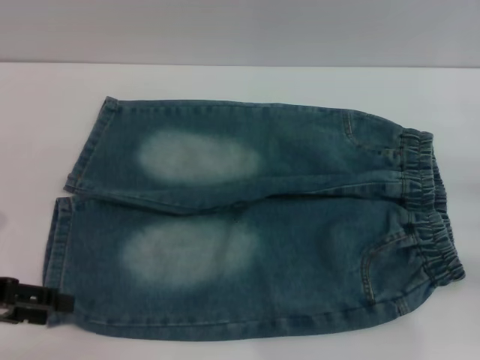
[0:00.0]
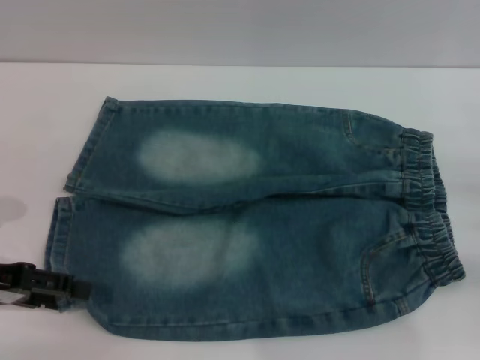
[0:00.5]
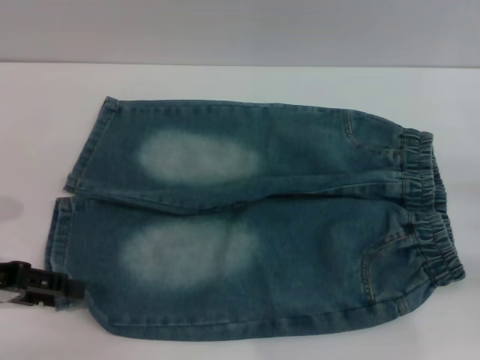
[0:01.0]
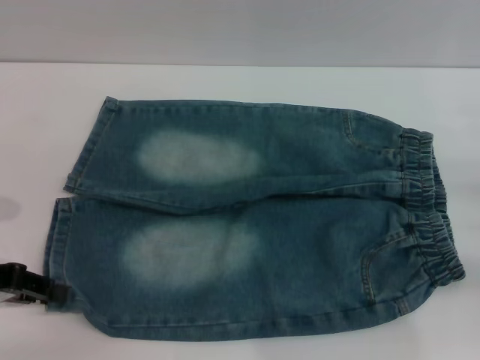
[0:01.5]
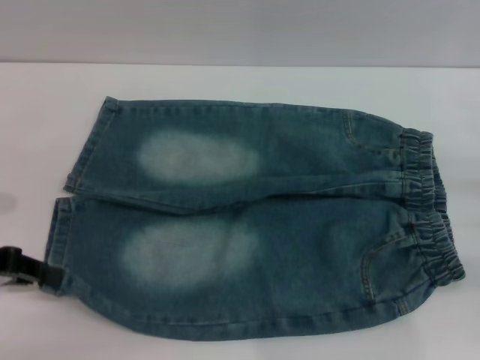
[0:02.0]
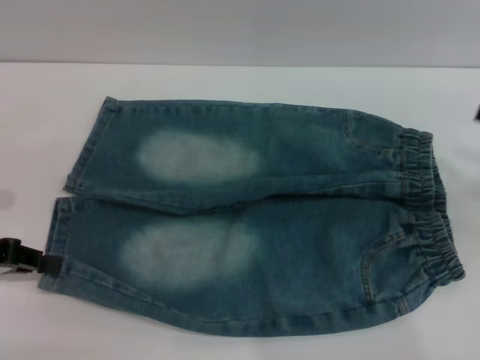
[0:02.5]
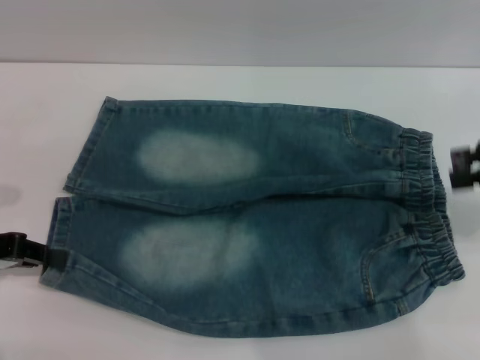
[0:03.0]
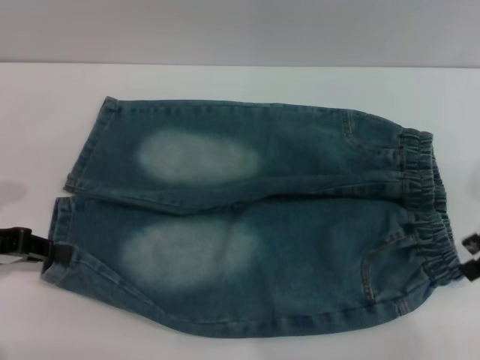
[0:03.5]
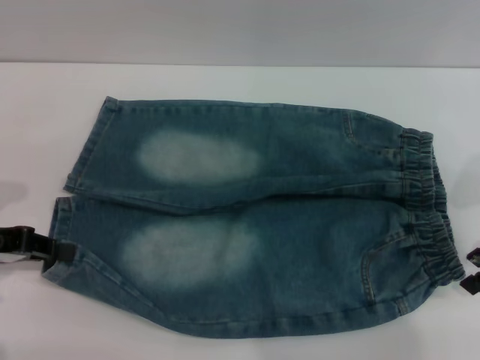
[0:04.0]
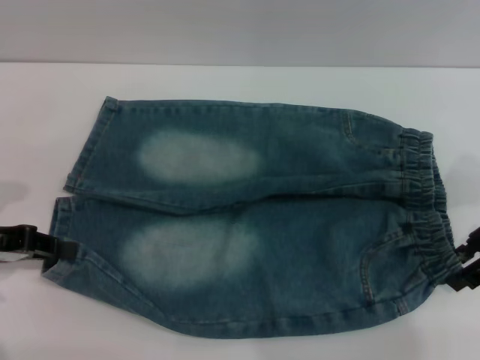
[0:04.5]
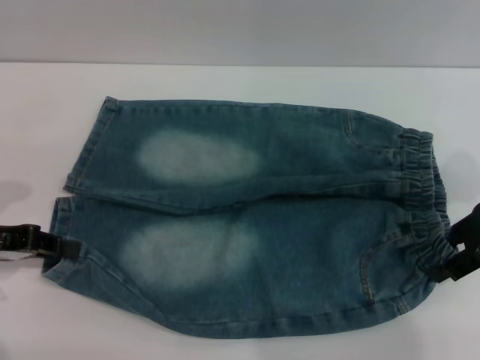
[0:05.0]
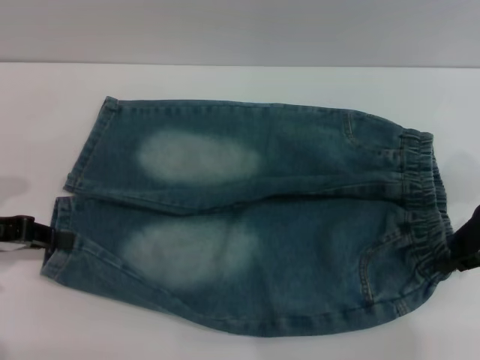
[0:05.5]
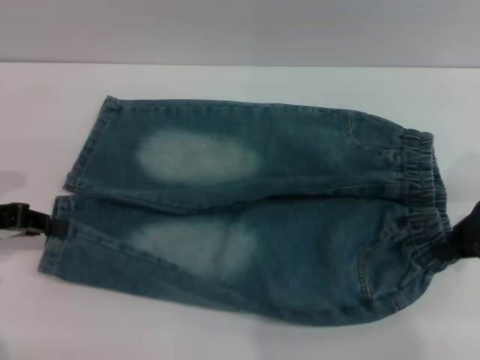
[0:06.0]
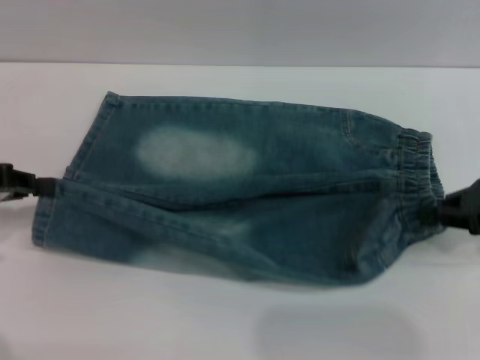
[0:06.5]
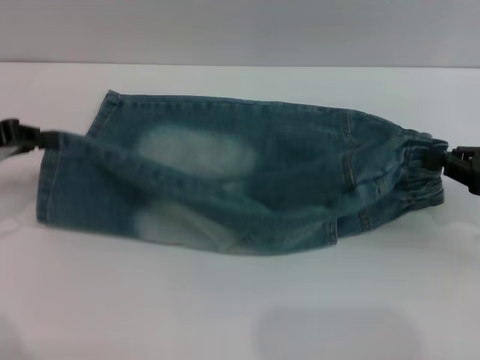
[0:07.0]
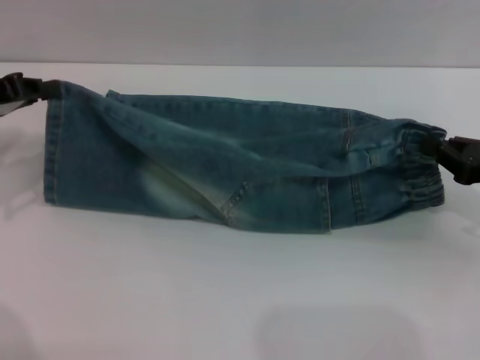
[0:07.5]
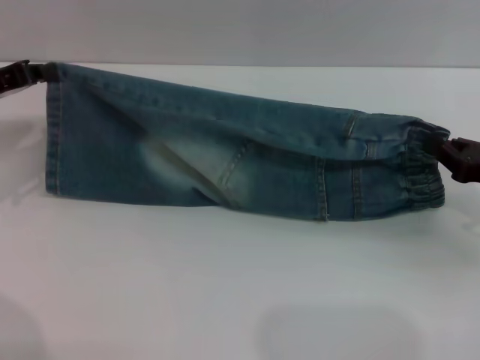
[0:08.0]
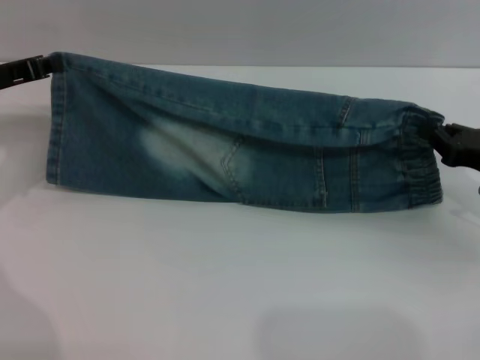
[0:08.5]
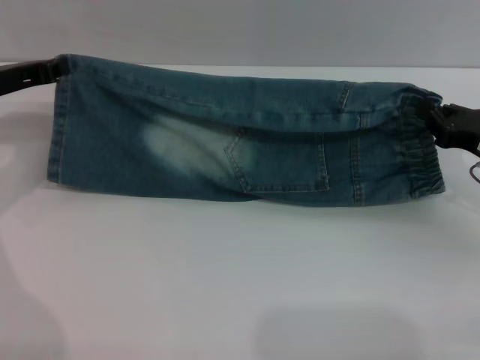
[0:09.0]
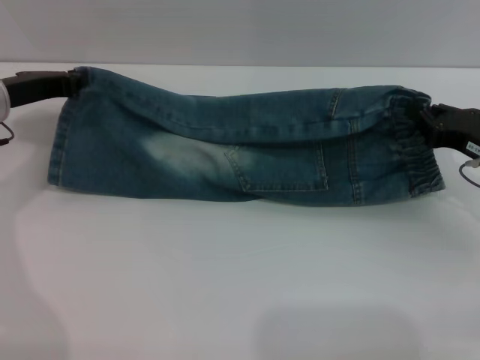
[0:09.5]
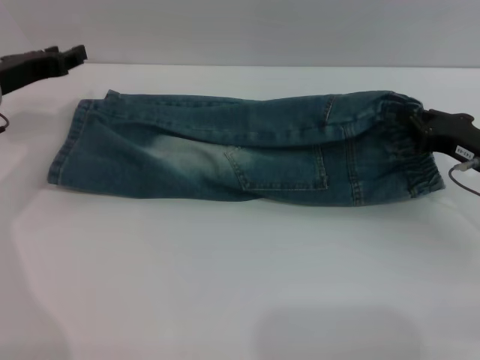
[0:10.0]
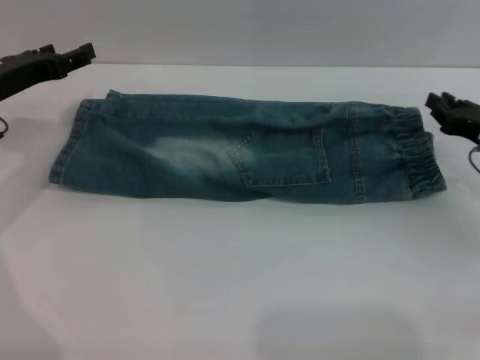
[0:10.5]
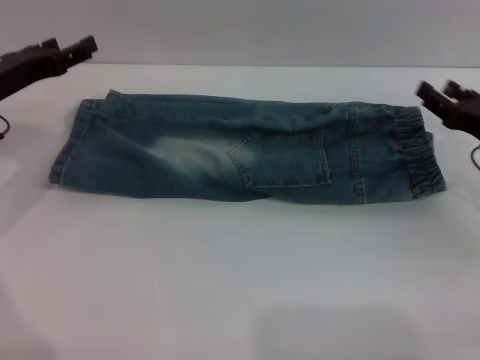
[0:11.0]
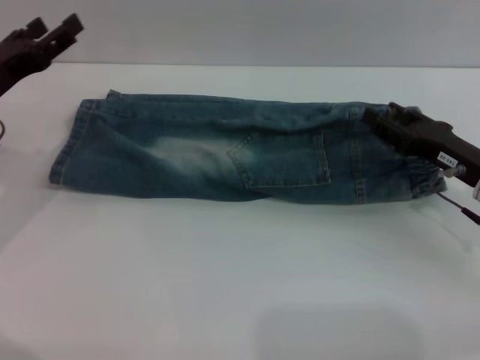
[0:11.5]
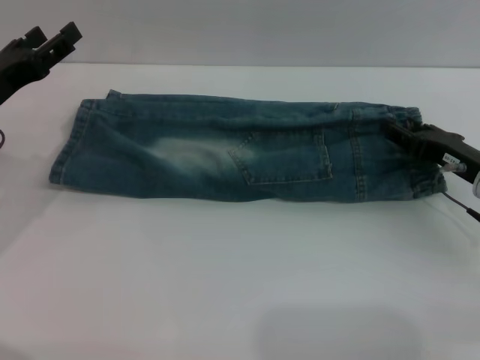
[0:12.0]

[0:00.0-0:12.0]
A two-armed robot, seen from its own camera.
Step, 0:00.0 to 0:11.0: Fold the bottom of the pants upward with both grippers.
0:00.0 to 0:02.0: The left gripper closes up.
0:02.0 to 0:04.0: The right gripper goes about 15 cm upward, forward and to the left.
0:04.0 to 0:06.0: The right gripper closes up.
0:06.0 to 0:08.0: The left gripper travels forward by roughly 10 cm, while the right gripper travels downward by about 5 cm.
0:08.0 to 0:10.0: The left gripper changes place by approximately 5 cm. The right gripper shifts by some 5 cm.
0:10.0 to 0:12.0: The right gripper opens up; the left gripper is displaced backward by about 5 cm, and opens its fingers.

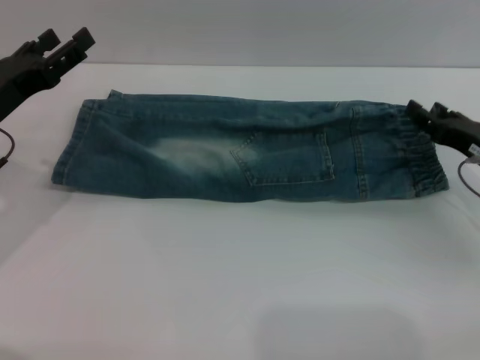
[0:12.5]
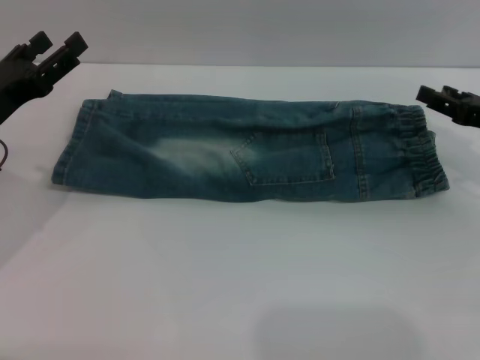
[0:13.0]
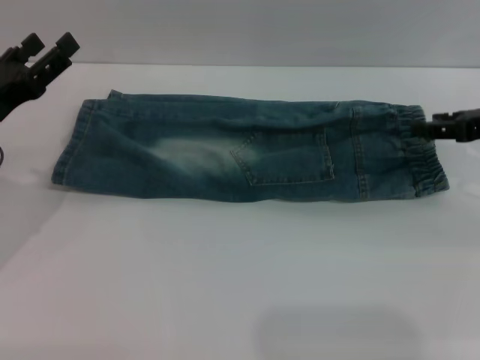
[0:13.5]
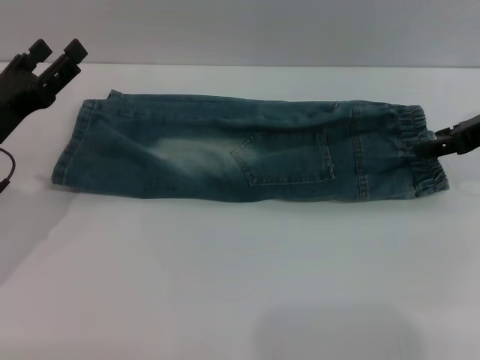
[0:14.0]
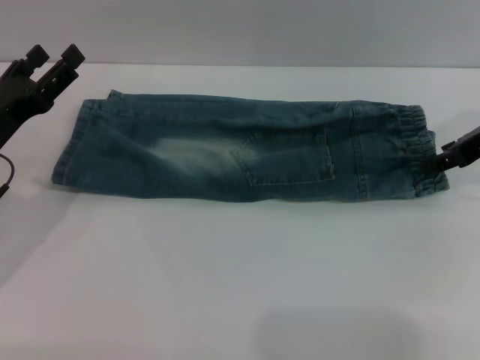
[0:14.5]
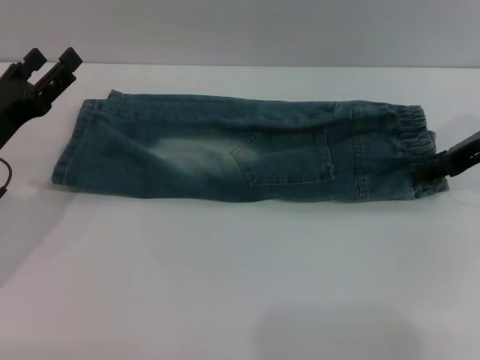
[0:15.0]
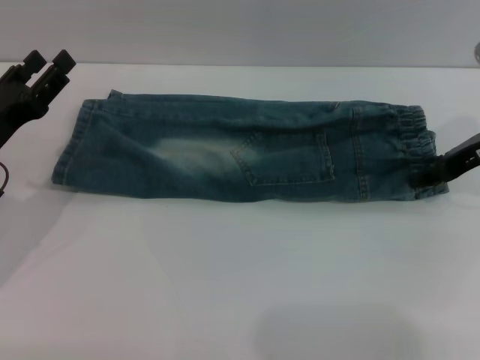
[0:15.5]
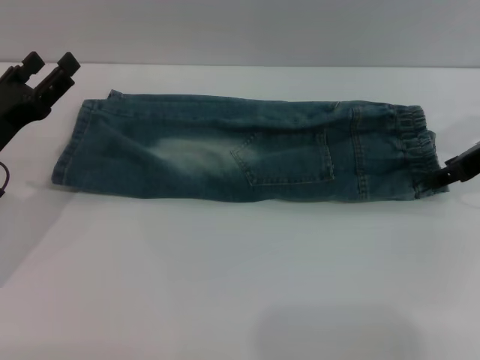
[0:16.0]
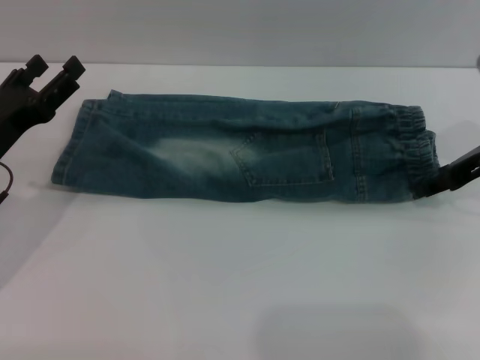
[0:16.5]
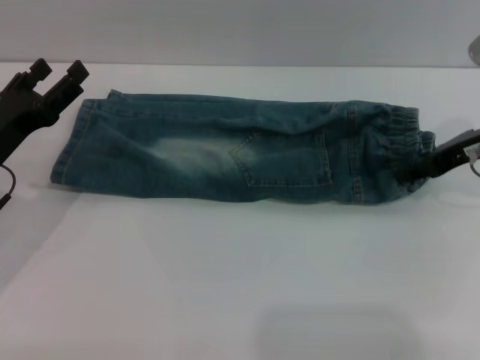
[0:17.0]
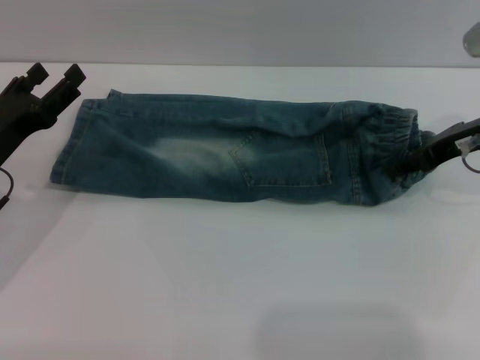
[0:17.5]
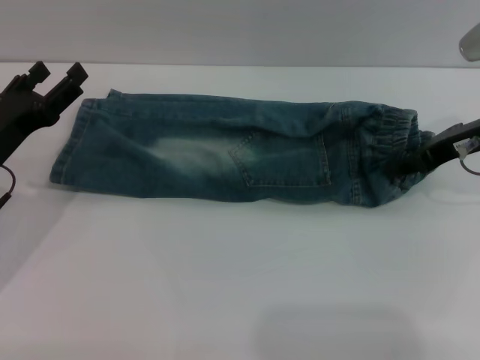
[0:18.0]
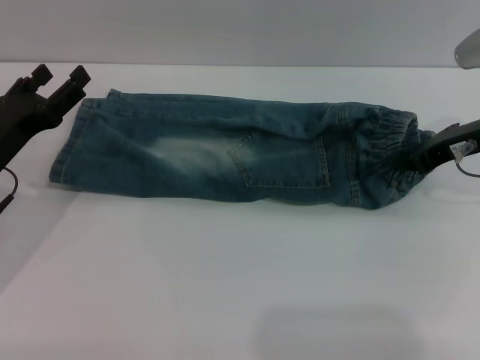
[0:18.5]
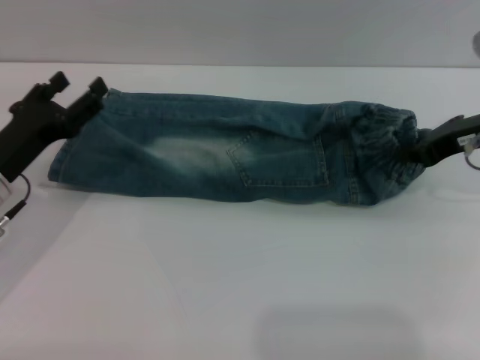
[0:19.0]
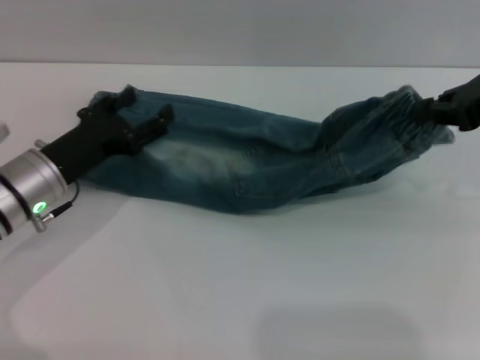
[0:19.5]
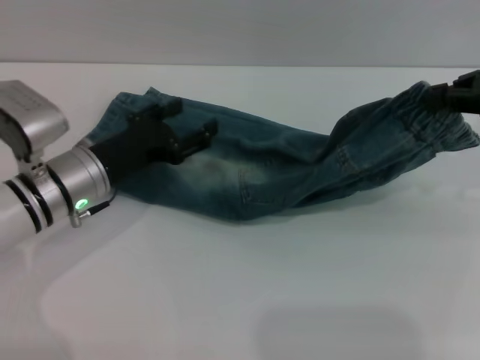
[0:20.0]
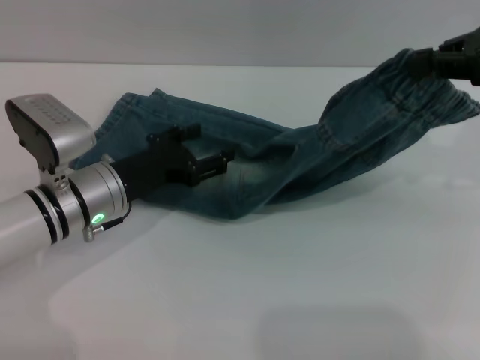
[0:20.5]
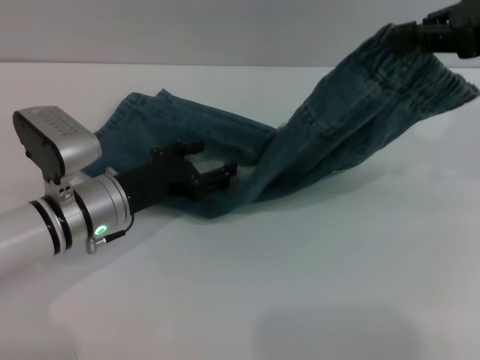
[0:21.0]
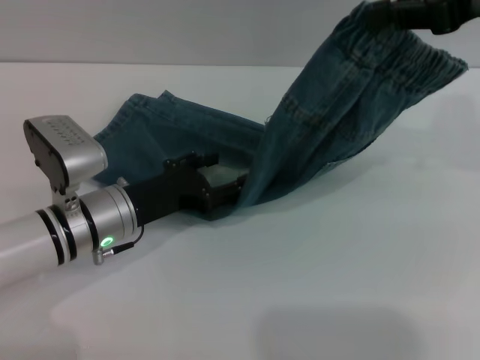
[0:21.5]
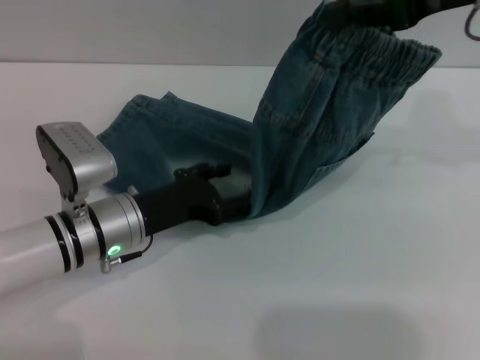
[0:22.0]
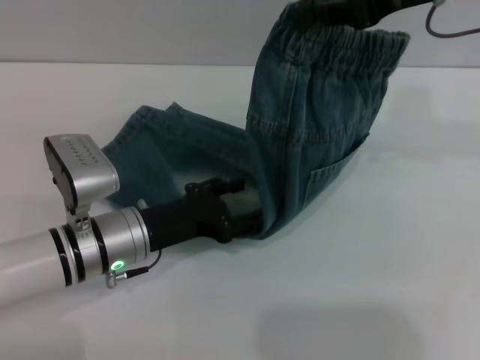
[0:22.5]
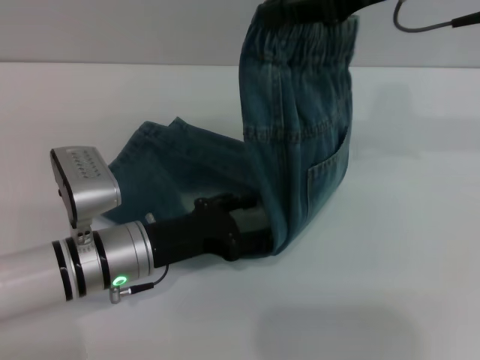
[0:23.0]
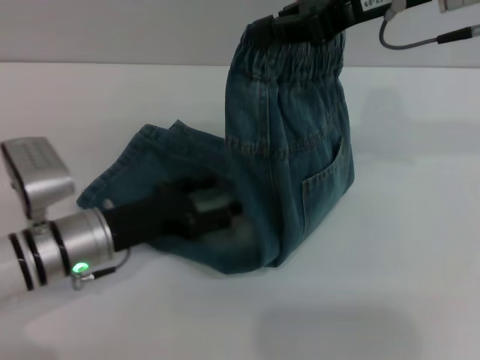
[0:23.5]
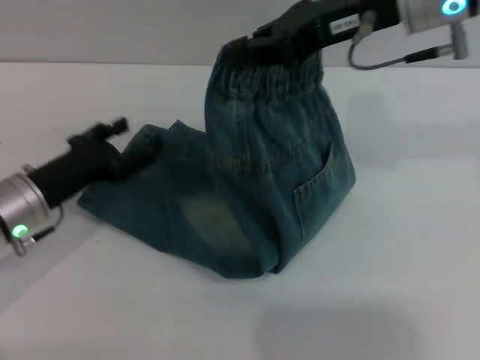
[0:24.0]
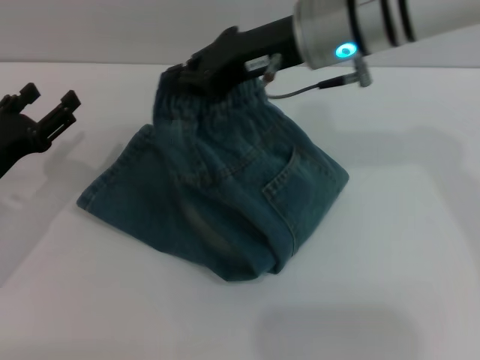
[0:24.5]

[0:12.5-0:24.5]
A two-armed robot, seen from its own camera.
0:12.5 to 0:14.5: The right gripper is displaced upward and forward by roughly 15 cm.
0:14.5 to 0:16.5: The grippers stay close to where they were, moving slightly.
0:16.5 to 0:18.5: The right gripper closes its fingers.
0:18.5 to 0:20.5: The left gripper goes about 10 cm to the right. Meanwhile the right gripper goes roughly 15 cm upward, and closes.
0:20.5 to 0:22.5: The right gripper heads to the left, covering some 10 cm.
0:22.5 to 0:24.5: The right gripper goes roughly 15 cm to the left and downward, while the left gripper heads to the left, covering roughly 15 cm.

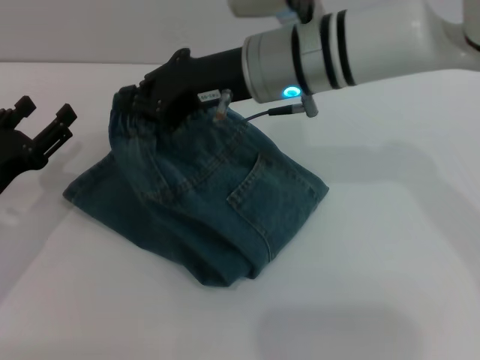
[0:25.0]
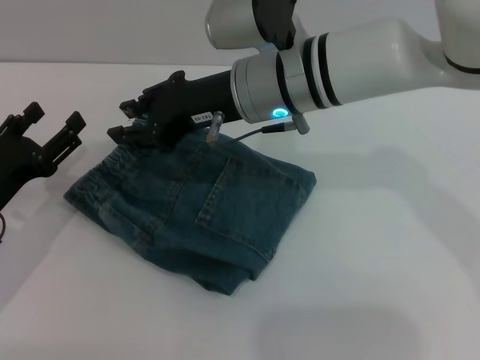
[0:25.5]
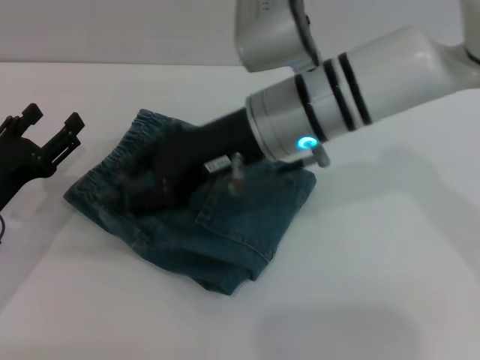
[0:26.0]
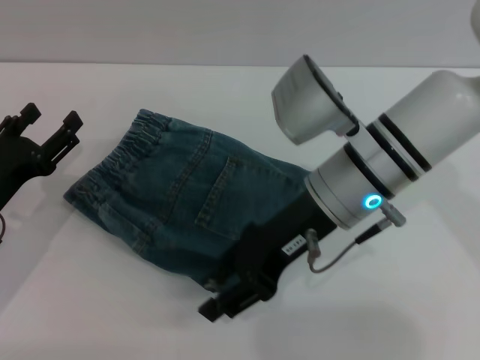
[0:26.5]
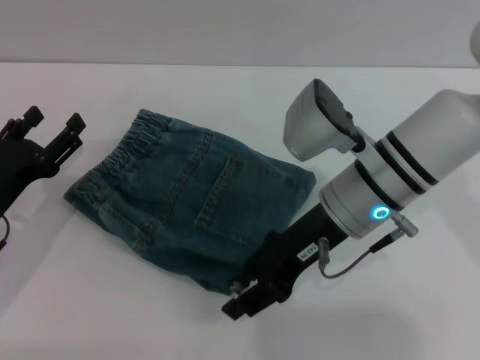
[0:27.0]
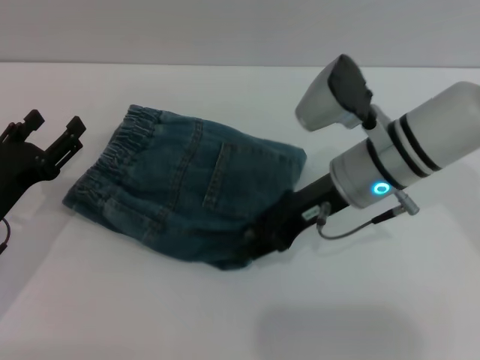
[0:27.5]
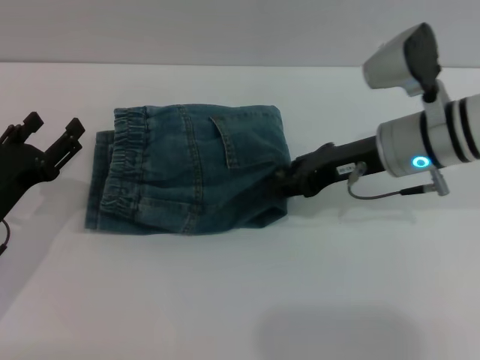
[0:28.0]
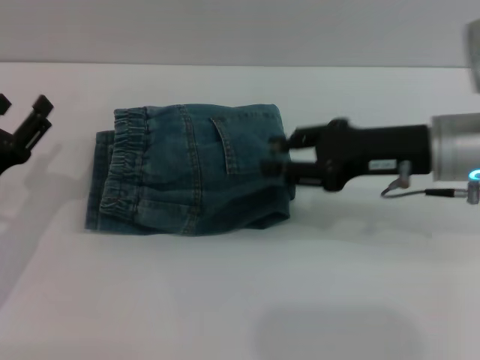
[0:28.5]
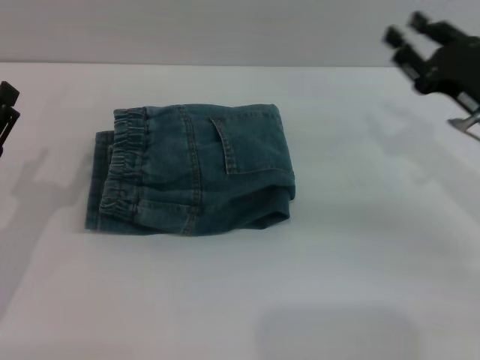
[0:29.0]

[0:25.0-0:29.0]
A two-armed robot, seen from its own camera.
Step, 0:26.0 to 0:28.0: Place the folded trousers onto the center area with the right grippers.
0:25.0 to 0:27.0: The right gripper travels downward, to the right and backward by roughly 10 cm, and opens up.
0:27.0 to 0:29.0: The right gripper is displaced to the right by approximately 15 cm.
